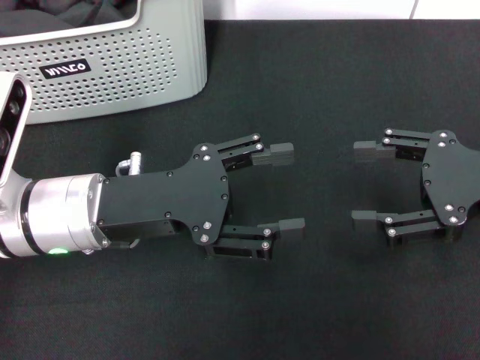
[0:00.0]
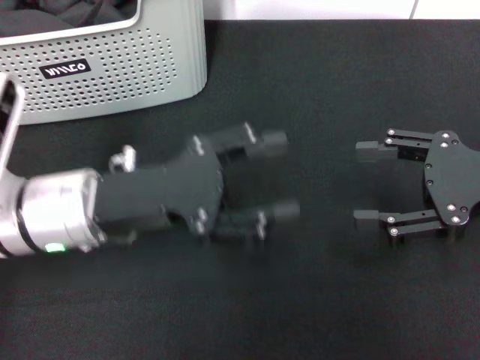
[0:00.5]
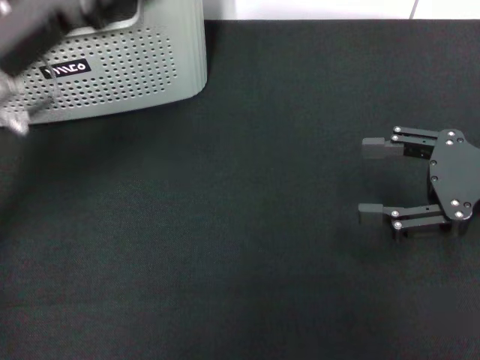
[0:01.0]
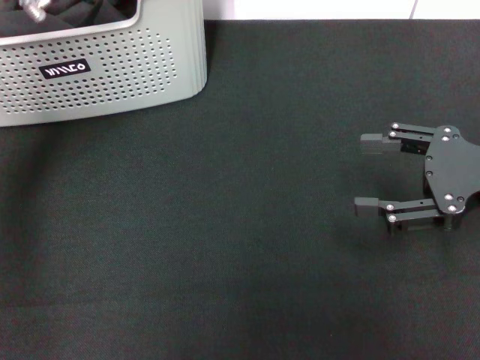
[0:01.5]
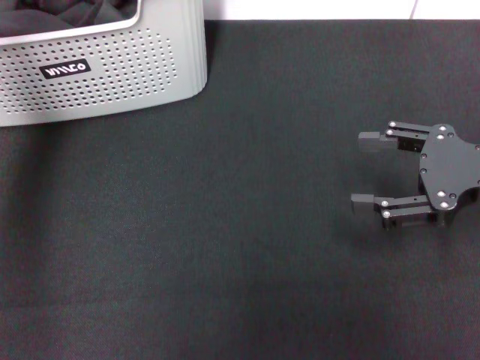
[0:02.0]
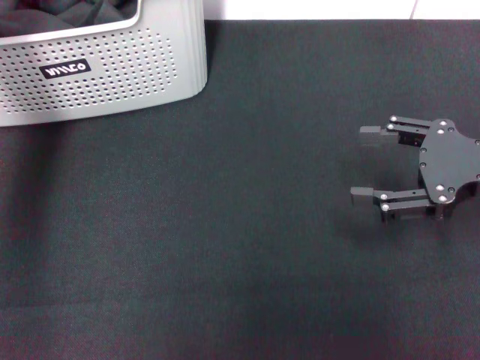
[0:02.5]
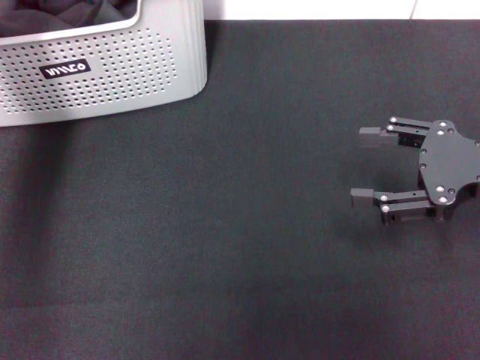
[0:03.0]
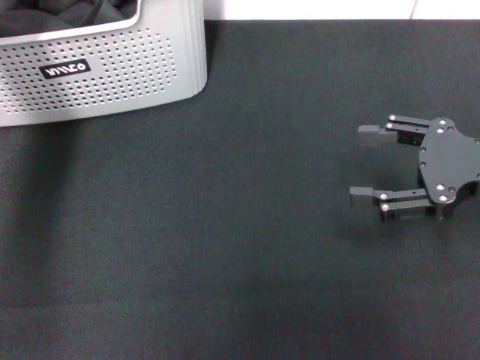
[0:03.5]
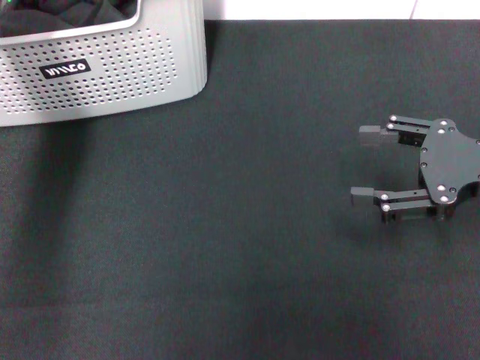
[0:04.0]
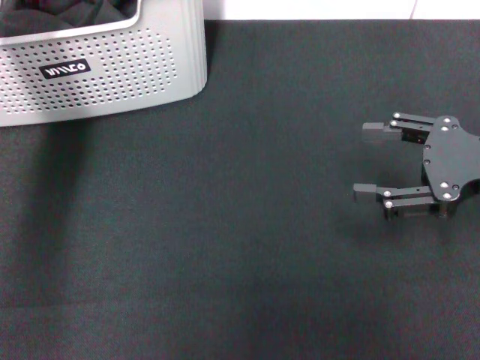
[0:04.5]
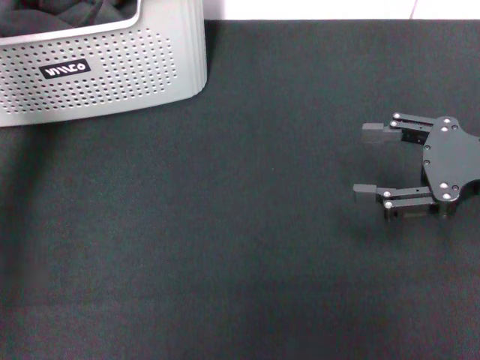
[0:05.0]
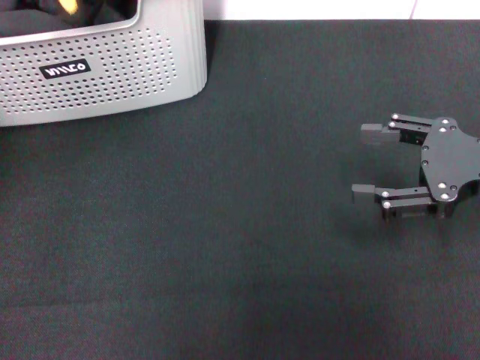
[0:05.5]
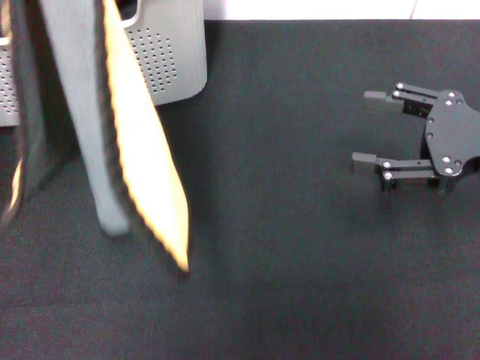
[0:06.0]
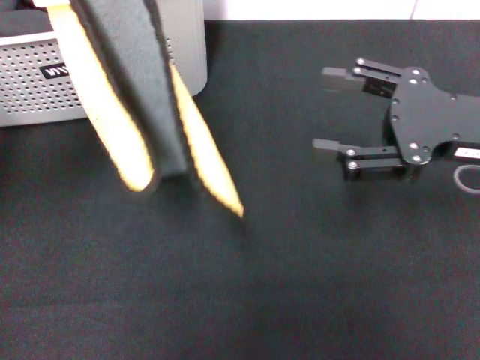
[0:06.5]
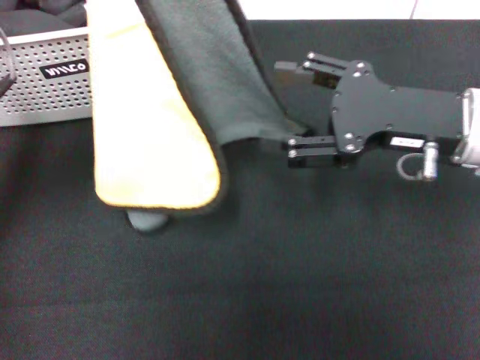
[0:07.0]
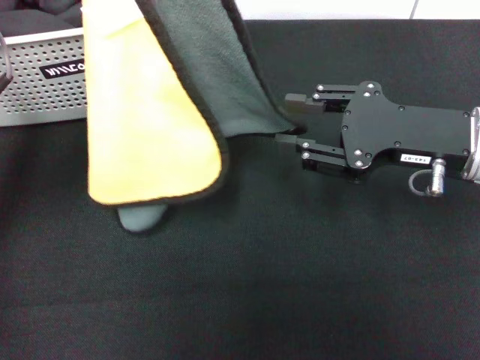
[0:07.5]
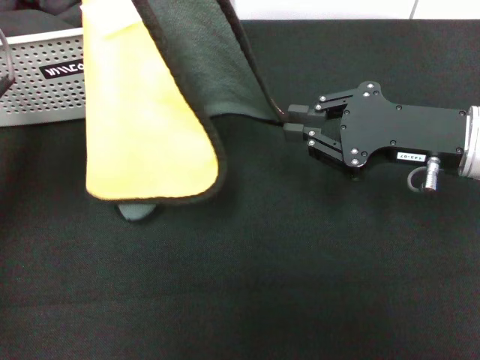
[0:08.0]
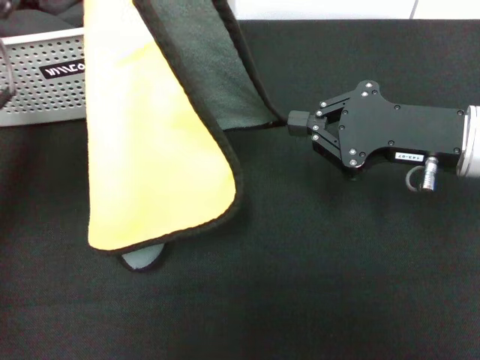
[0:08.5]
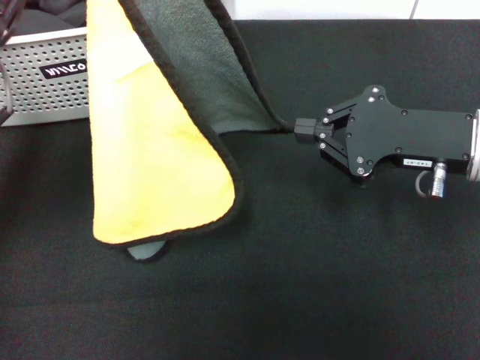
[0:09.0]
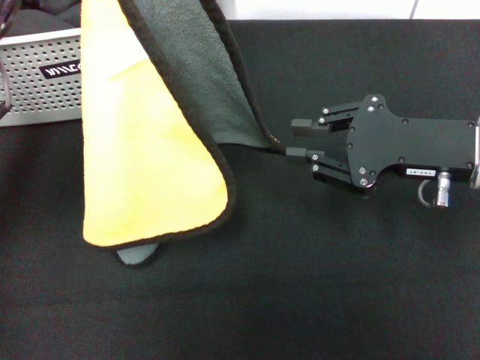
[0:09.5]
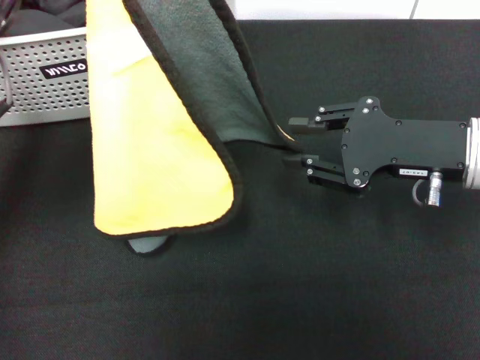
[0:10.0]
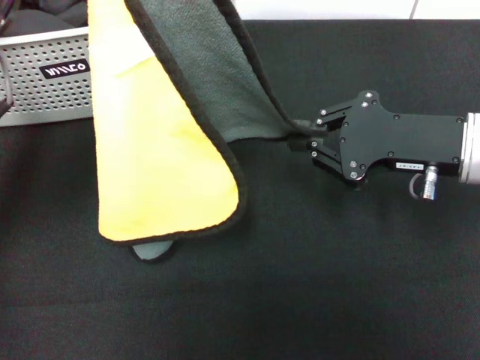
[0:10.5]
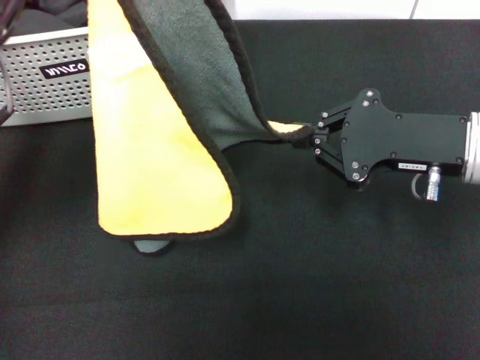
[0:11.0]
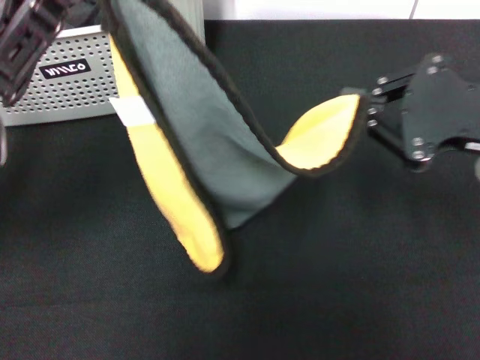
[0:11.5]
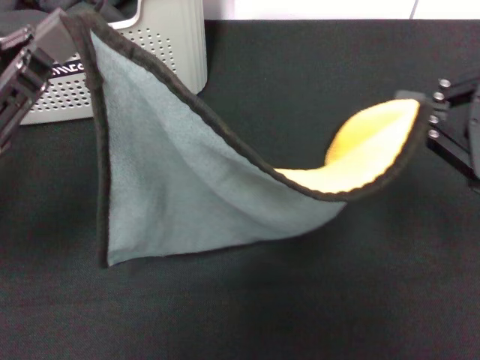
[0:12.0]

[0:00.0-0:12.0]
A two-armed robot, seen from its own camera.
Task of the whole recording: pick up the towel from the storage box and lay it flat on the black tablecloth.
Step, 0:00.0 to 0:04.5: Pick up a towel with the left gripper.
Step, 0:05.0 to 0:10.5: Spread the towel flat with the left gripper.
0:00.0 to 0:02.0: The left gripper heads forward and upward, covering roughly 20 cm.
0:02.0 to 0:04.0: The left gripper heads downward, covering approximately 10 cm, and closes up.
0:04.0 to 0:06.0: The left gripper travels backward and upward by about 20 cm.
0:06.0 to 0:08.0: The left gripper goes some 5 cm downward. Meanwhile the right gripper shifts roughly 5 cm to the left, and closes up.
0:08.0 to 0:10.0: There are only small adjustments of the grippers.
0:10.0 to 0:12.0: The right gripper moves upward, backward and to the right, some 10 cm, and closes. The left gripper ends up about 5 cm from where it was.

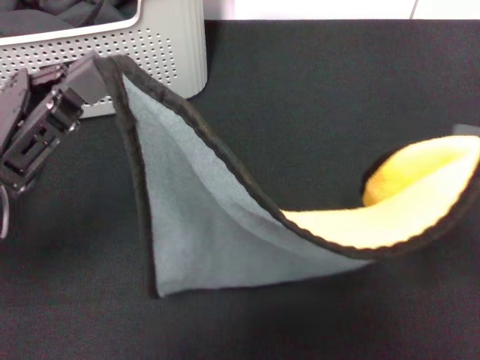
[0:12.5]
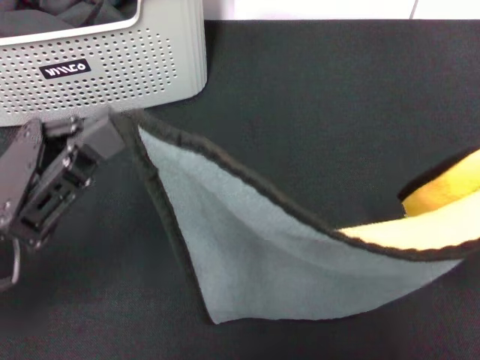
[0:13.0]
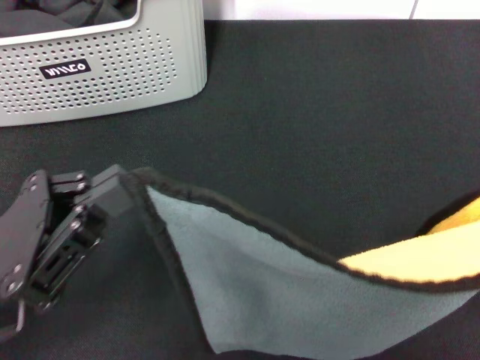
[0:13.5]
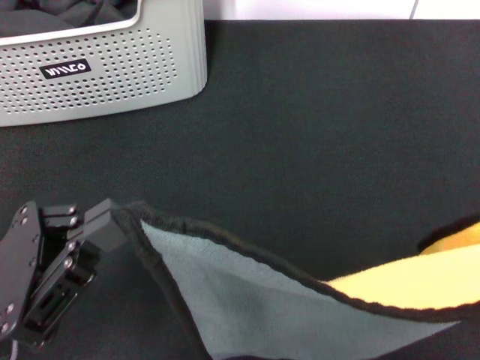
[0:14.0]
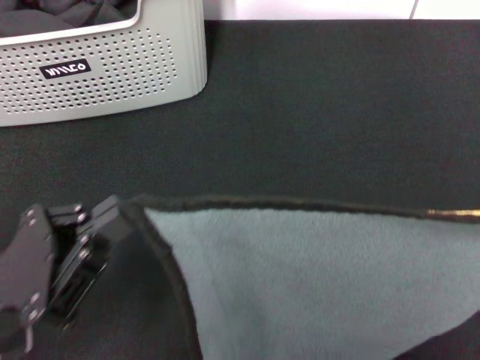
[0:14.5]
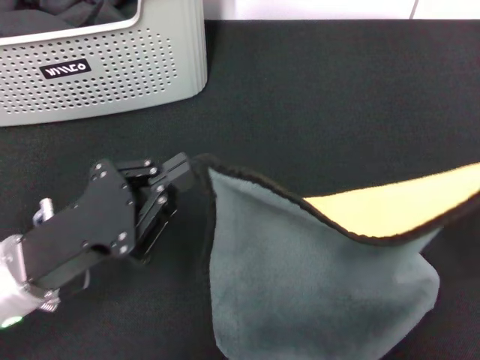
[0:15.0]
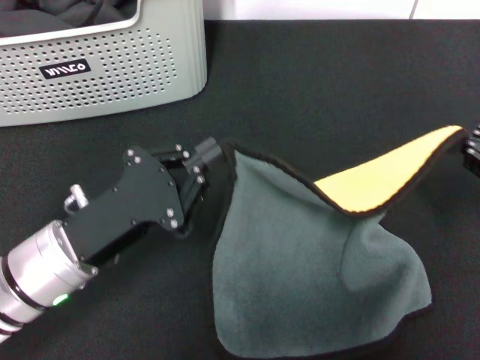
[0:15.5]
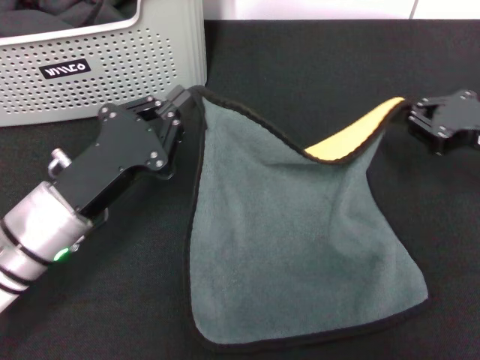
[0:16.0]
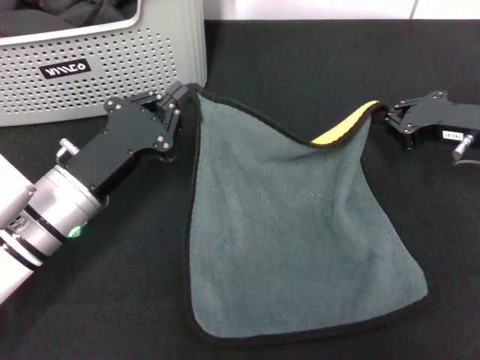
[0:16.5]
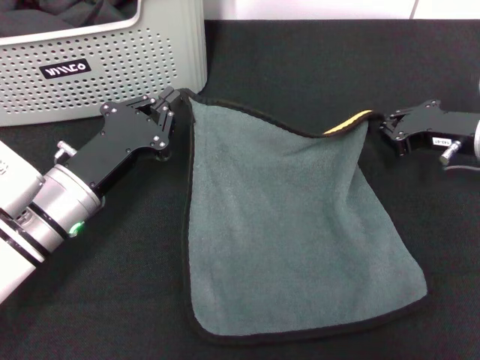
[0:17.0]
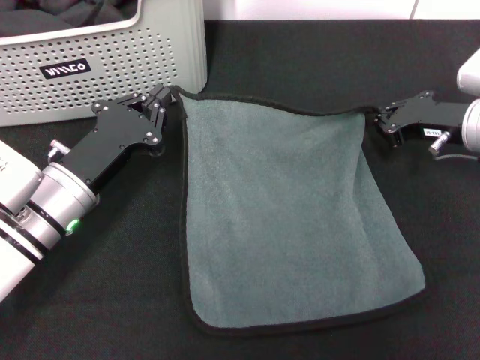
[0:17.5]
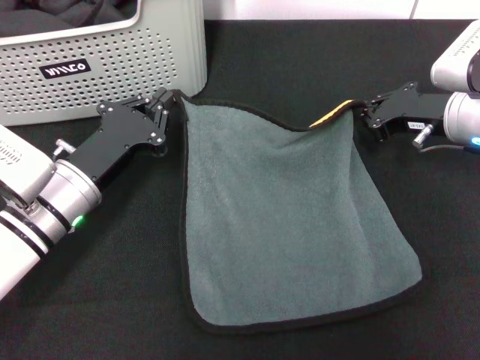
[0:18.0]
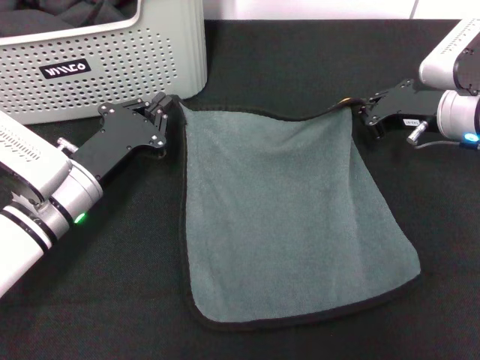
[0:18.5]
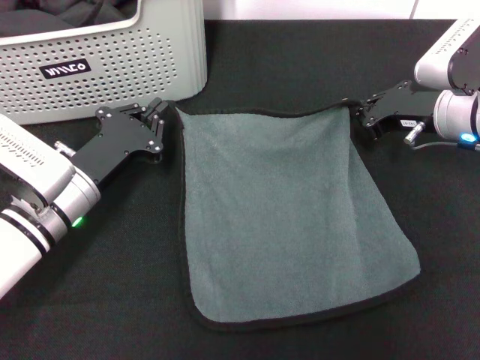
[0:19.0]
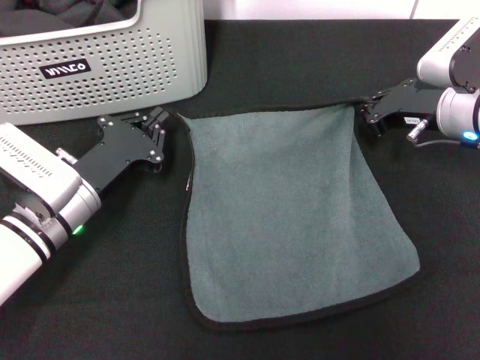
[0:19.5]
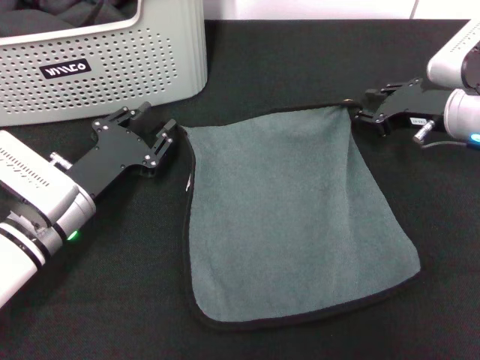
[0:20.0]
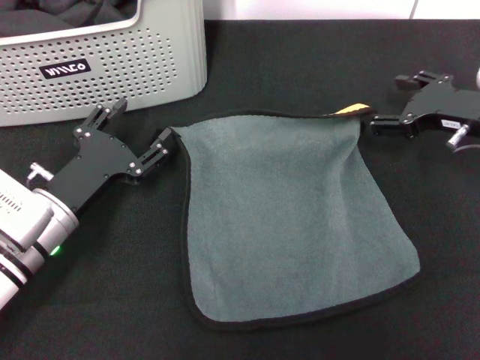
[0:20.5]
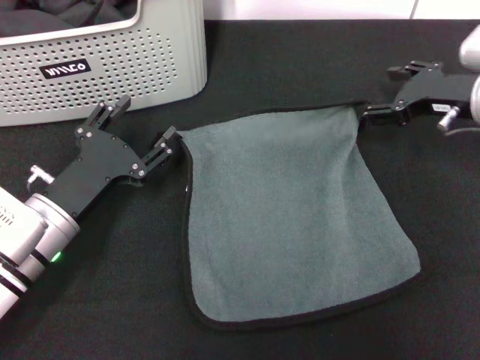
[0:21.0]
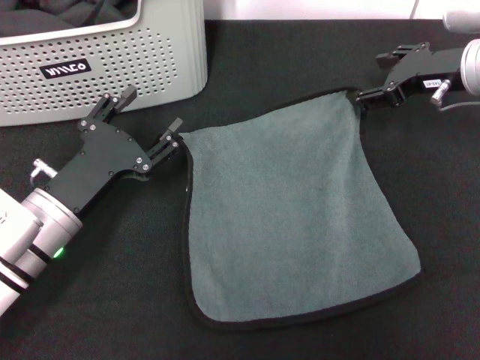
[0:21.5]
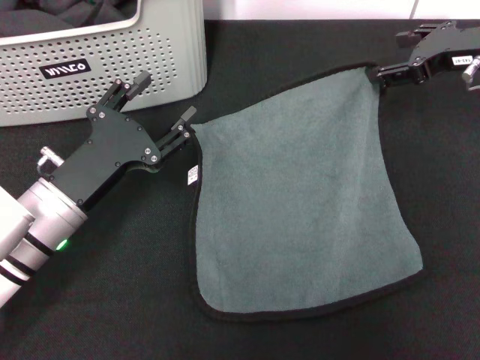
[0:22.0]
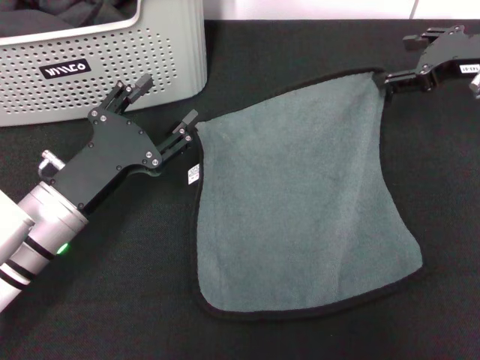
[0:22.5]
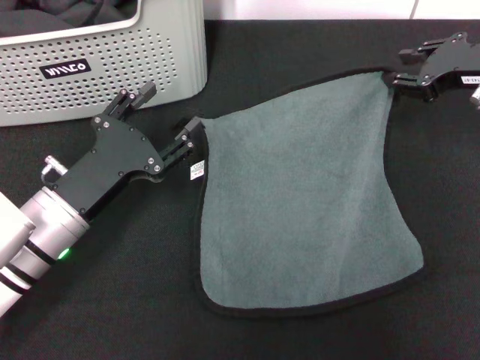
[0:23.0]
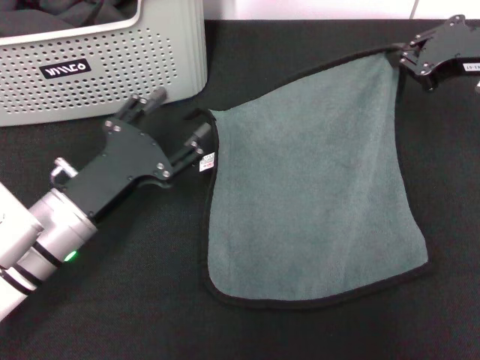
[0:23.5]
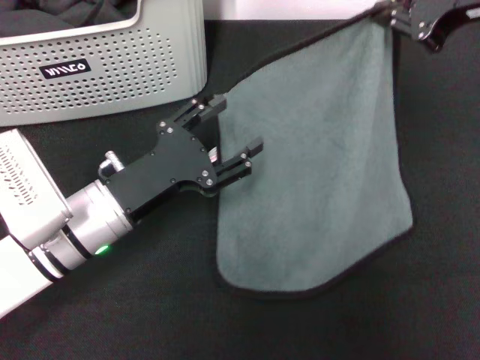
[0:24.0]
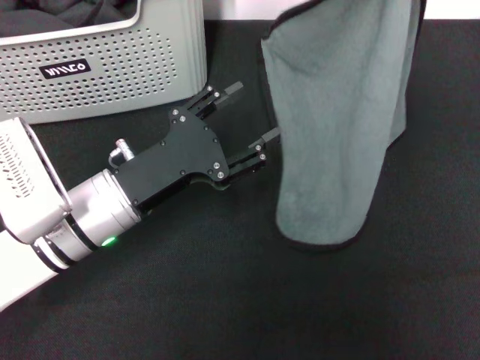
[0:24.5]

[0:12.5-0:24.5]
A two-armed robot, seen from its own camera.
Task of the whole recording: pick up the towel from the storage box and lay it flat on the black tablecloth.
0:12.5 to 0:14.5: The left gripper is displaced backward and downward by roughly 10 cm. The right gripper shifts approximately 10 cm to the right and backward.
0:14.5 to 0:16.5: The left gripper shifts about 10 cm forward. Meanwhile the right gripper shifts roughly 25 cm forward and downward.
0:16.5 to 0:18.5: The right gripper shifts by roughly 5 cm.
0:18.5 to 0:20.5: The right gripper opens, while the left gripper opens up.
0:20.5 to 0:22.5: The right gripper goes some 5 cm upward.
0:22.5 to 0:24.5: The left gripper ends up approximately 5 cm from where it was, while the right gripper goes approximately 20 cm upward and backward, and closes.

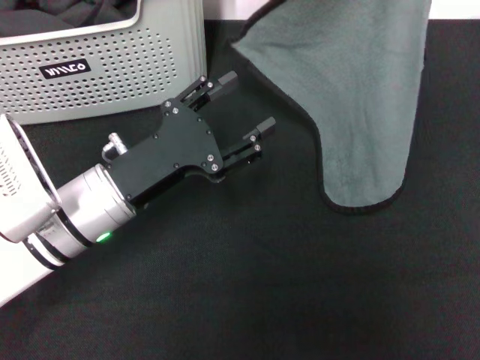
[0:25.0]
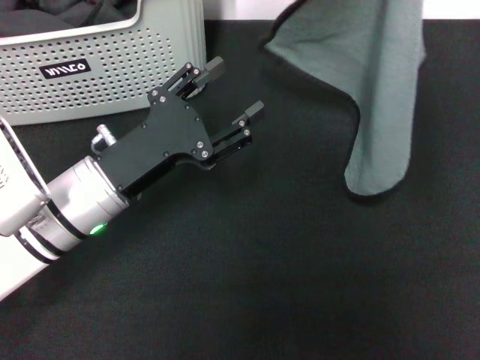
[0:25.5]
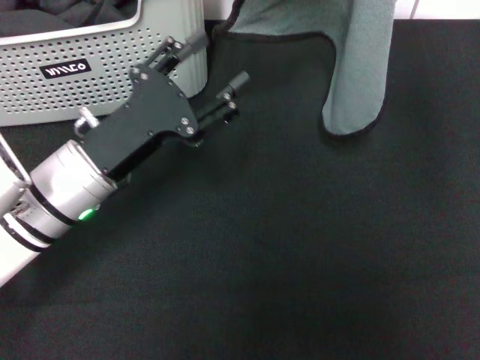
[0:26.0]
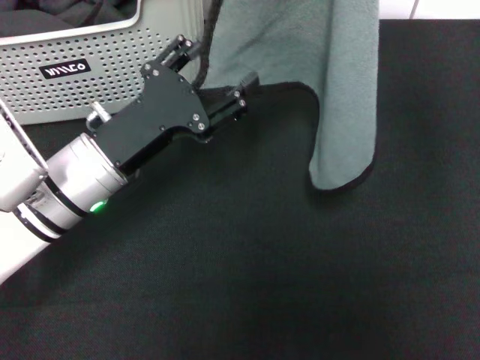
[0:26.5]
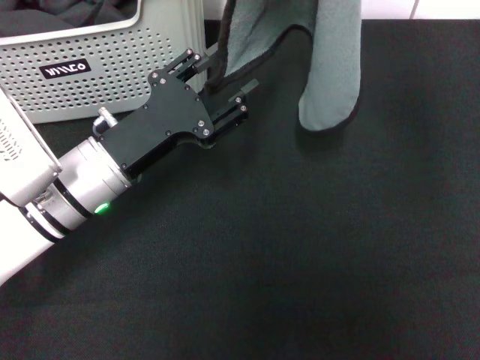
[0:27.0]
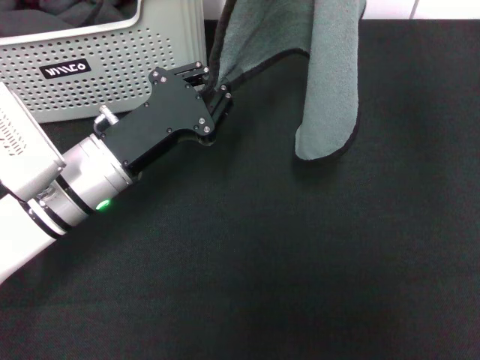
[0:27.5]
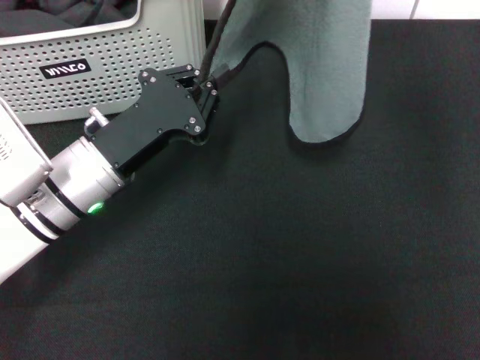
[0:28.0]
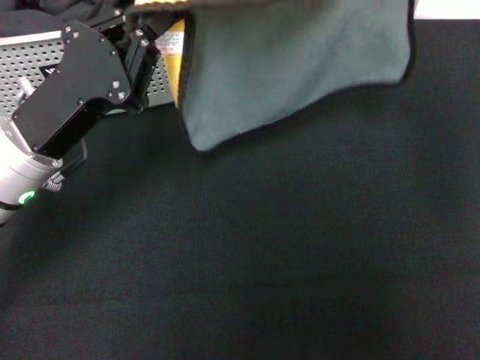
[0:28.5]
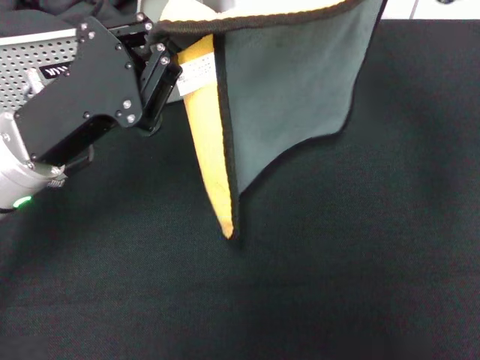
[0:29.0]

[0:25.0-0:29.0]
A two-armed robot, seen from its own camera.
Task of the whole recording: pick up the towel from the storage box and lay it flat on the black tablecloth.
0:27.0 to 0:29.0: The right gripper shifts roughly 15 cm downward and to the right; the left gripper heads upward, covering roughly 5 cm, and closes.
